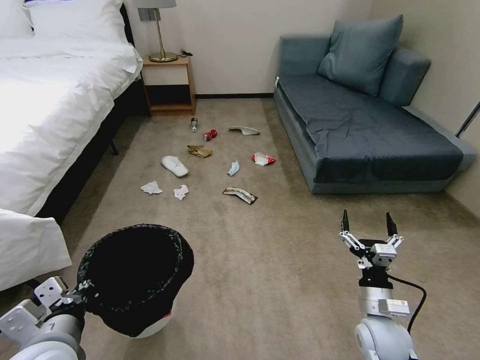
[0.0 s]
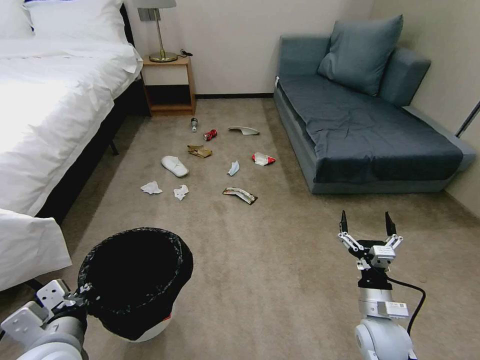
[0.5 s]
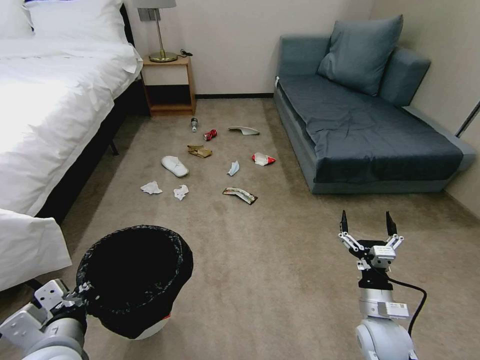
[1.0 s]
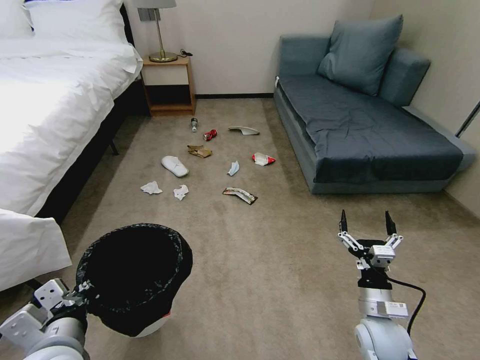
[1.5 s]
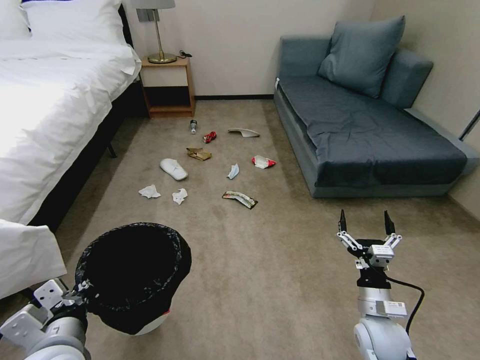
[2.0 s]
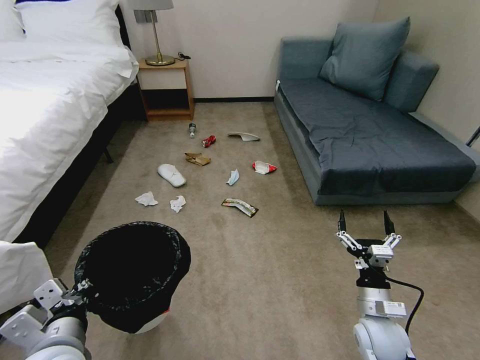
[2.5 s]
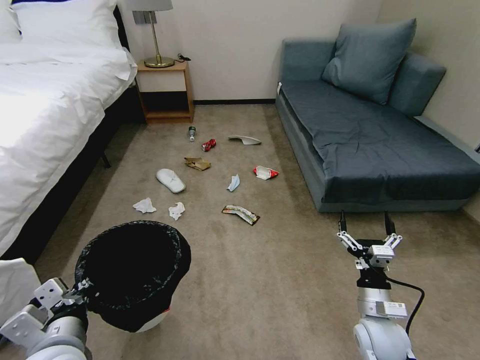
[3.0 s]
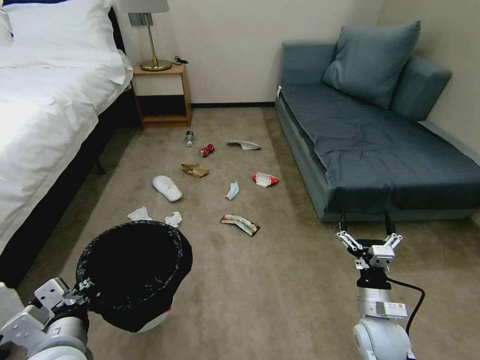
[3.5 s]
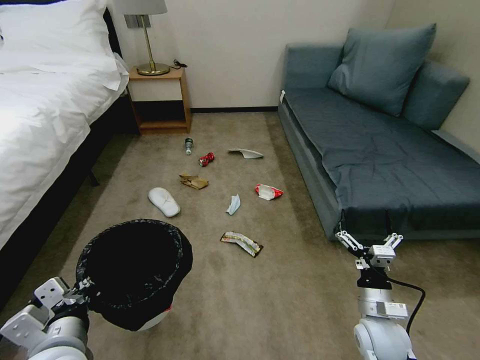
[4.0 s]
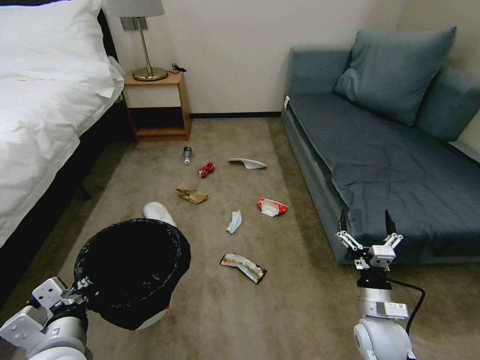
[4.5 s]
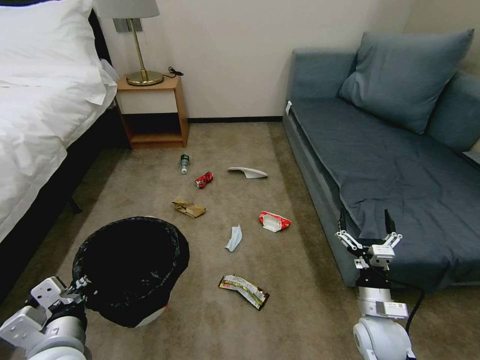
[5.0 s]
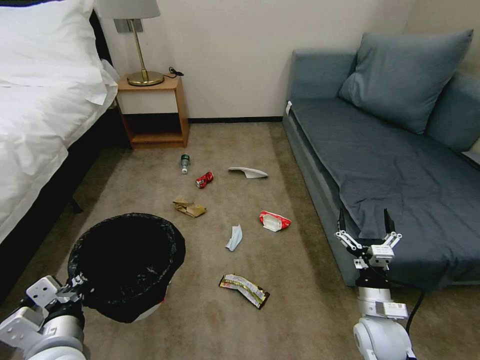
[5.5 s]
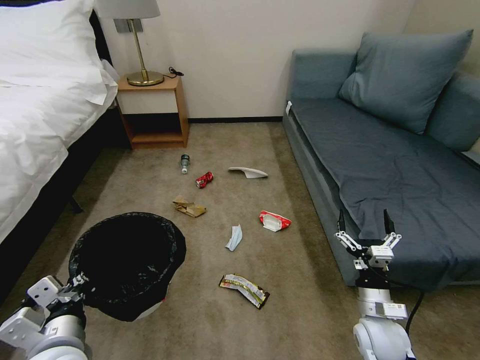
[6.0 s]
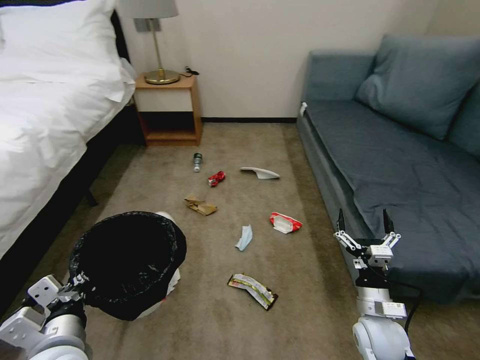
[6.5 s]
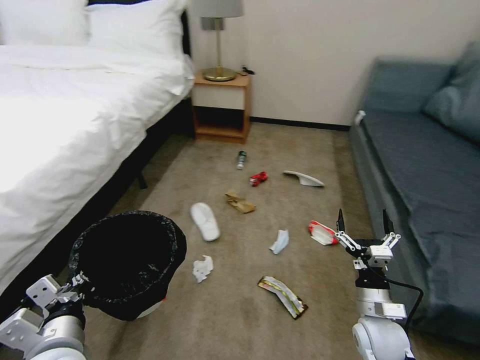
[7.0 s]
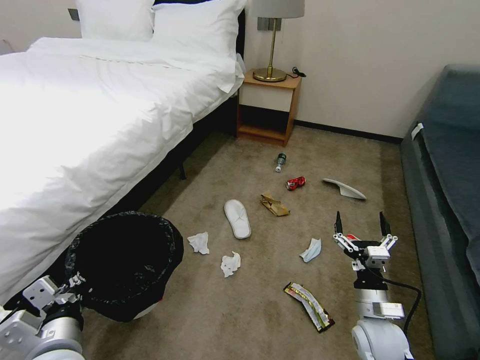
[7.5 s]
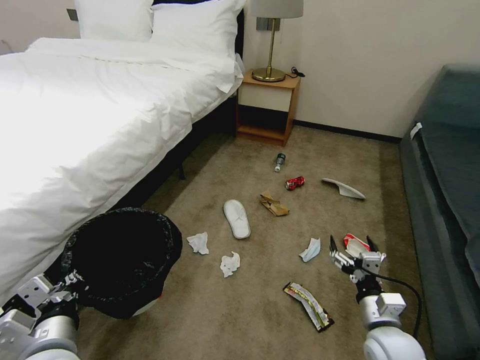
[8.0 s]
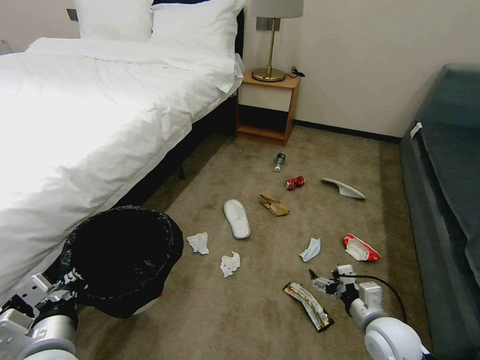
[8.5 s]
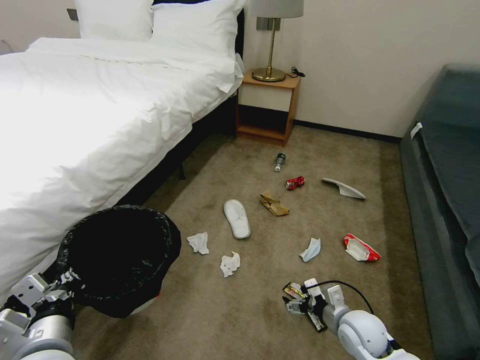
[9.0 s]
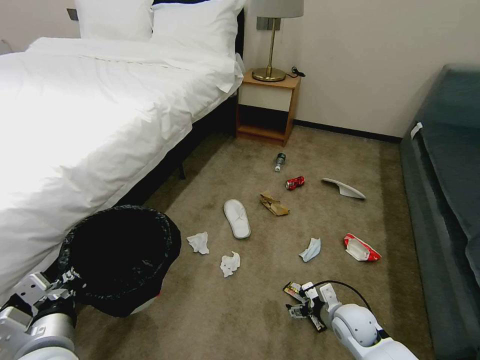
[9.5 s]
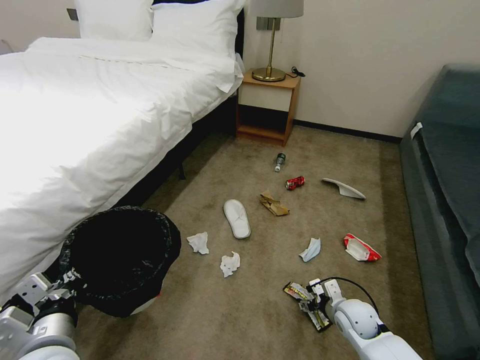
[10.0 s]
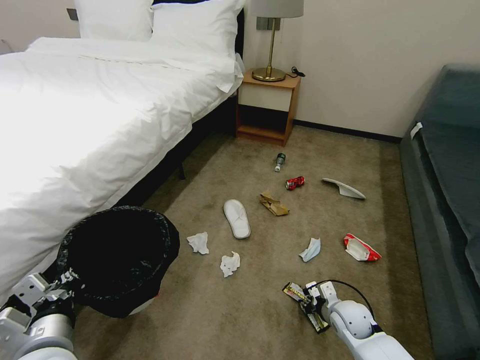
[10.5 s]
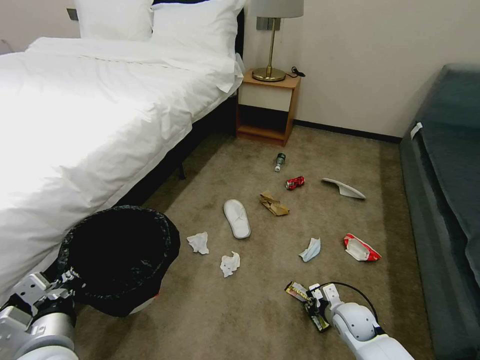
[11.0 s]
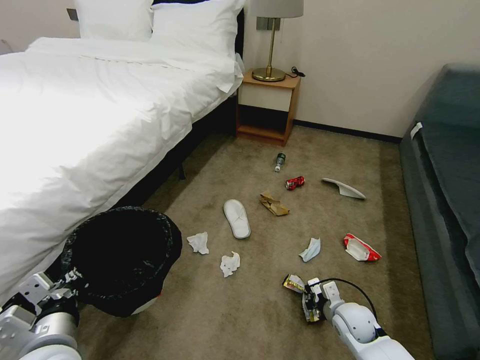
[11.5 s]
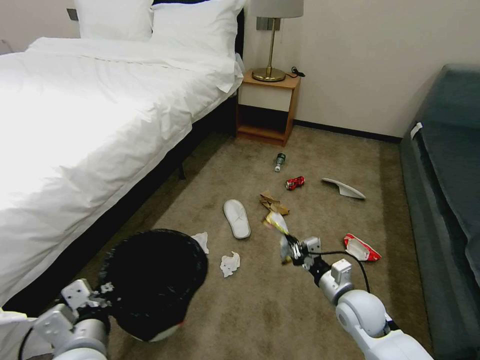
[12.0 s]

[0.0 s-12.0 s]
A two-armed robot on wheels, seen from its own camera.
Task of the whole recording: Pick up the trash bin, then pick up the garbage on the floor and place it into the trash bin.
8.0 to 10.0 s: The right gripper travels forward and downward by roughly 10 cm. Meanwhile the left gripper closes.
10.0 to 12.0 s: The right gripper goes about 5 cm upward, and closes up.

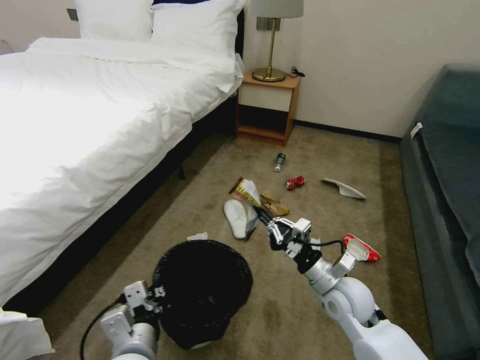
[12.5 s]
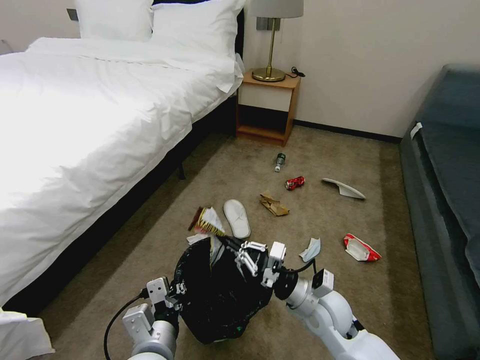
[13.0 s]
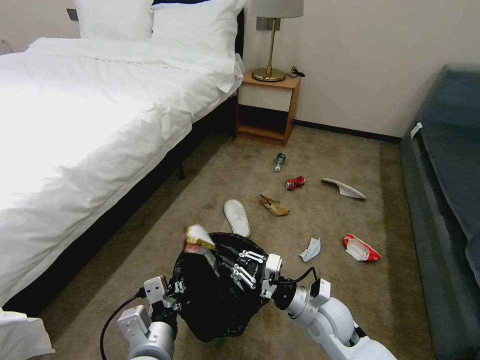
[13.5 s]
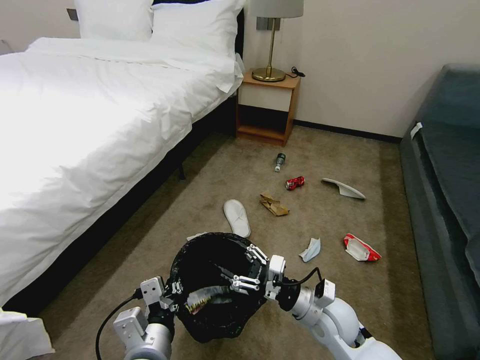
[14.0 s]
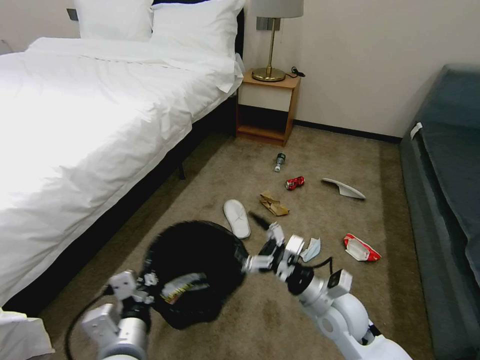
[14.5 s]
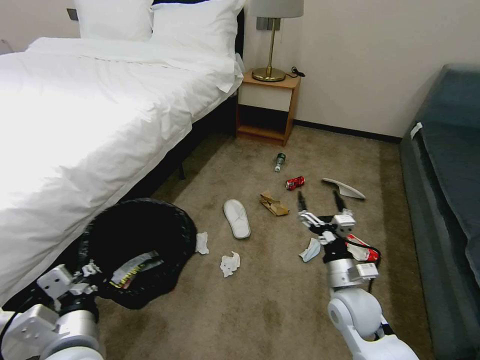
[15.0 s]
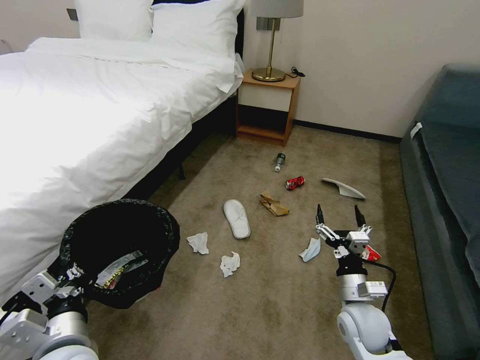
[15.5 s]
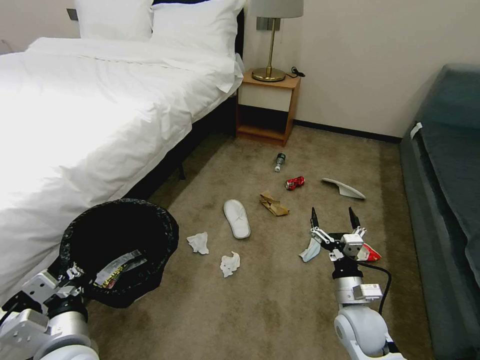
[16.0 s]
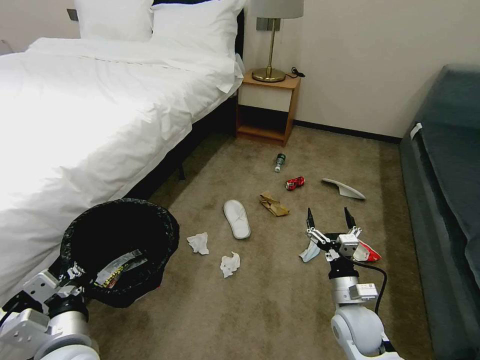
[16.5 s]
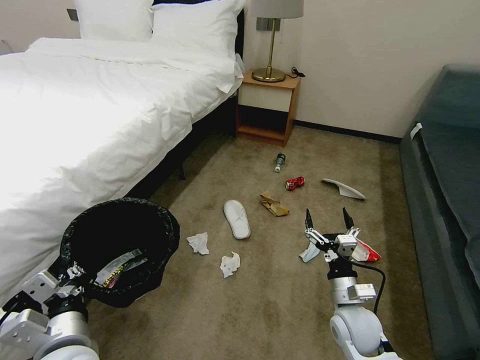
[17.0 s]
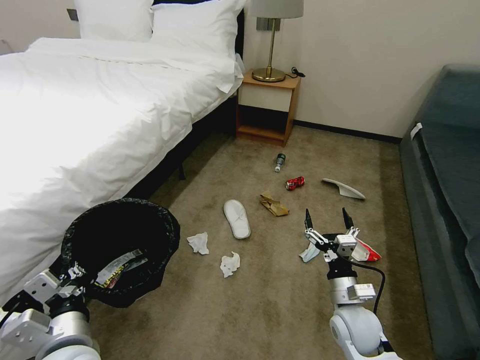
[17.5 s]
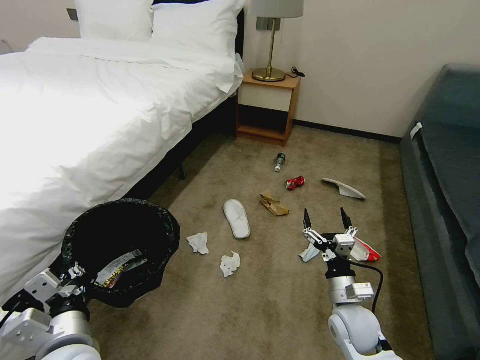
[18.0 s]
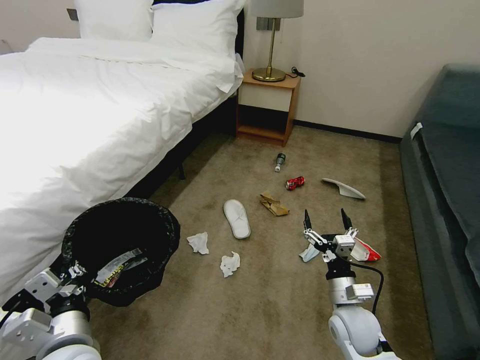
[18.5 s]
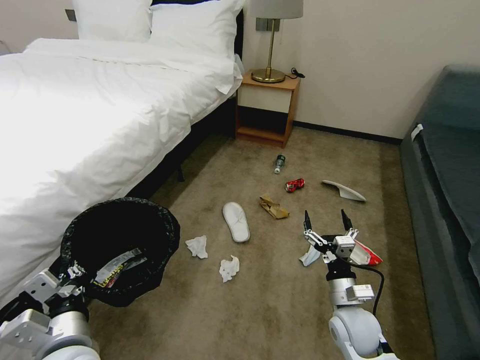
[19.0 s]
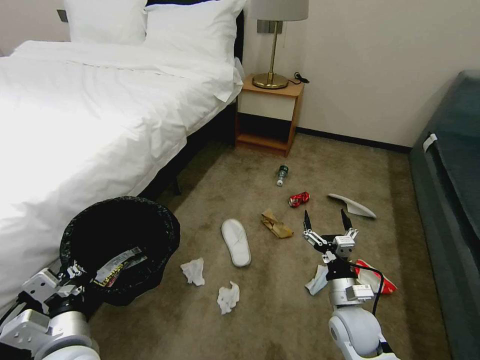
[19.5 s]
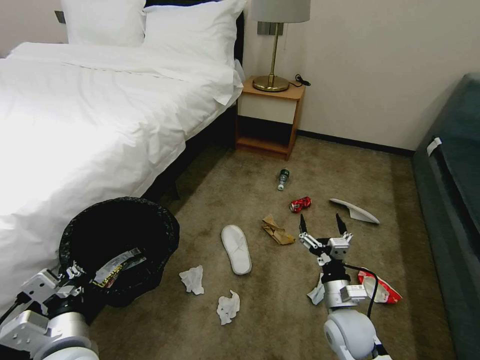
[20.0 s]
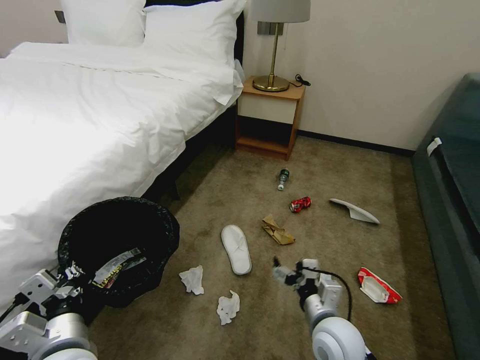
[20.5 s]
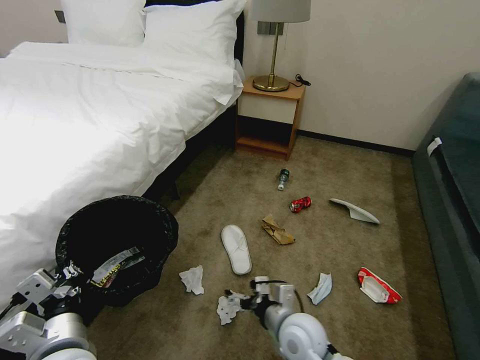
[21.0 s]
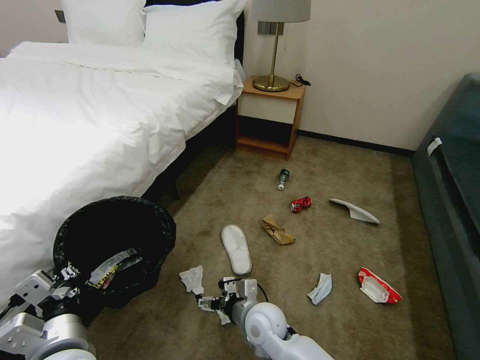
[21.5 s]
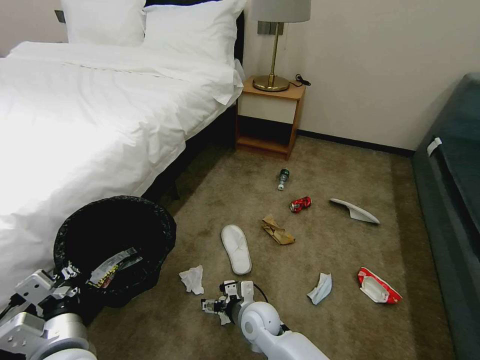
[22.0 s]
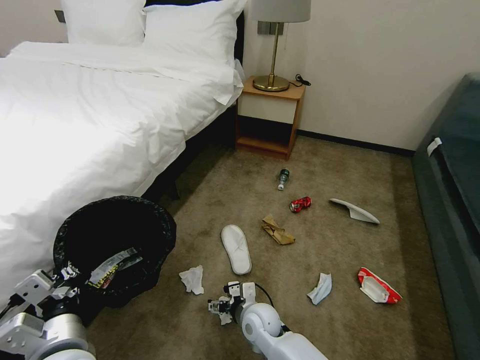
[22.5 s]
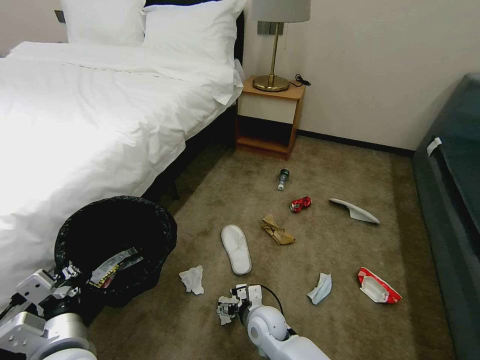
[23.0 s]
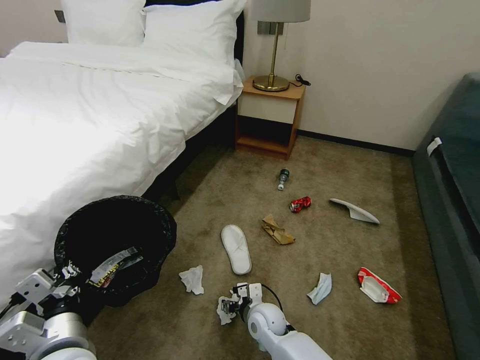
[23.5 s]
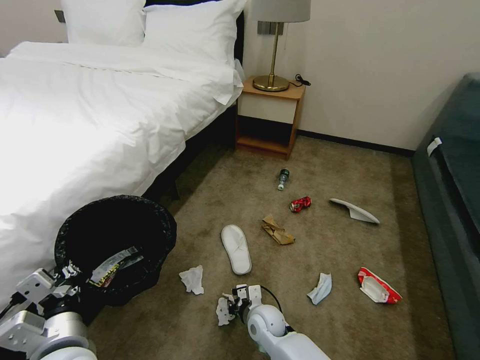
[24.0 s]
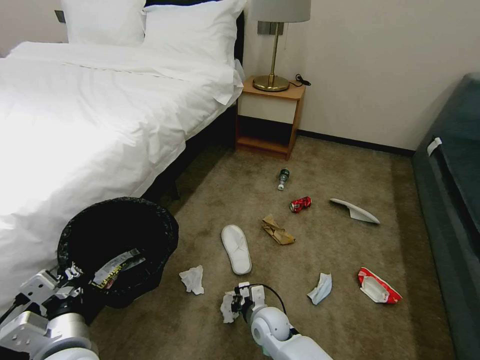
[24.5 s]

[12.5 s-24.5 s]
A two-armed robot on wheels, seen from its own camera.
Task of the whole recording: Pick up the trash bin, then pick up the garbage on the floor and place it into the trash bin.
12.5 to 14.5 s: The right gripper opens.
14.5 to 16.5 s: The left gripper heads to the left, covering roughly 5 cm. The right gripper moves downward, approximately 5 cm.
16.5 to 18.5 s: Both grippers stay about where they are.
18.5 to 20.5 s: The right gripper travels to the left by about 5 cm.
20.5 to 22.5 s: The right gripper goes about 20 cm to the left, downward and forward.
22.5 to 24.5 s: The right gripper closes up.

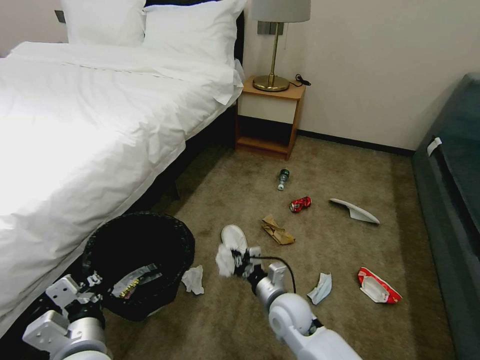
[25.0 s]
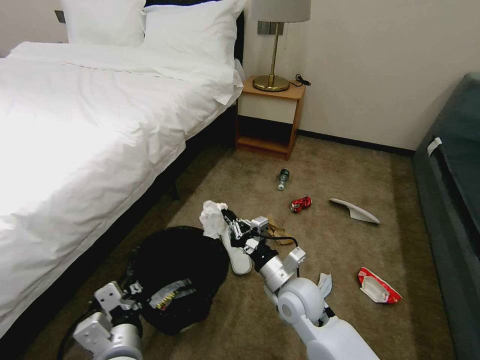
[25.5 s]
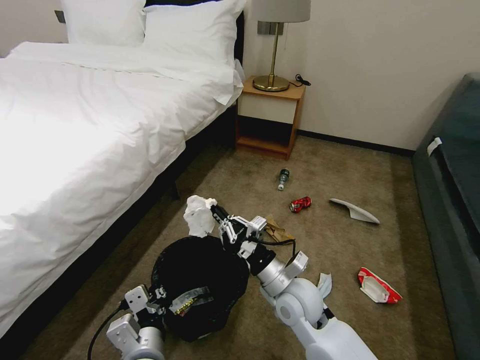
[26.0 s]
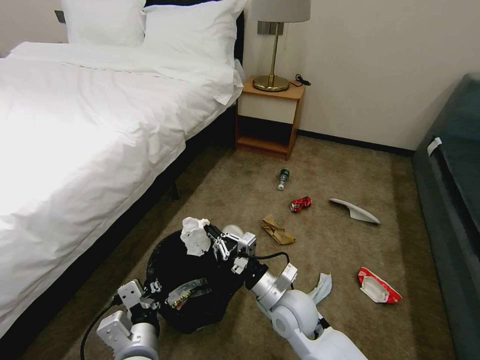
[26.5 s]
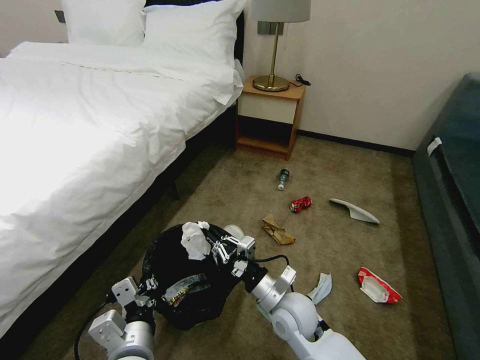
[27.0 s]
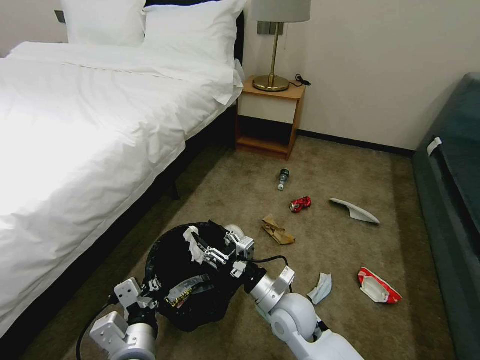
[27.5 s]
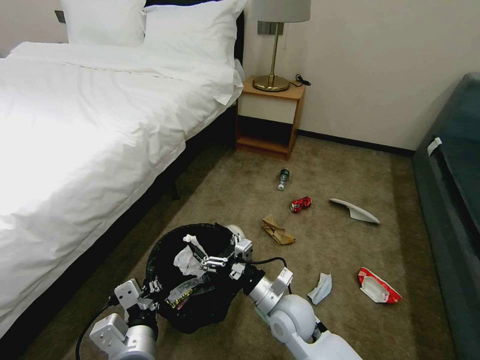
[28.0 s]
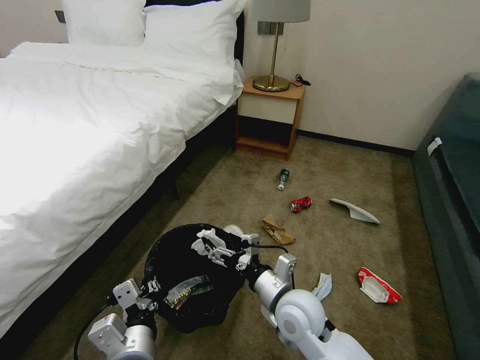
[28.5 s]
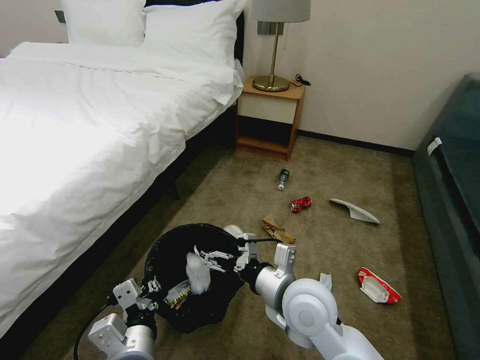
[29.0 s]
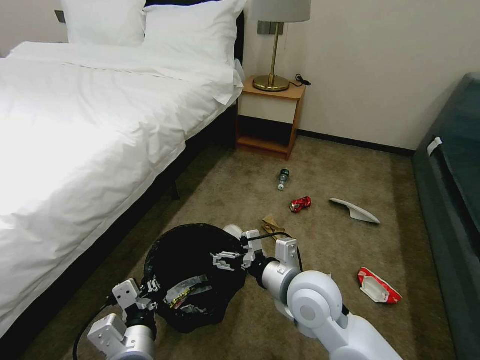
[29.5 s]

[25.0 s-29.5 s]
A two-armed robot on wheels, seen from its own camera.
Task of the whole recording: Pick up the trash bin, then pick up the garbage on the floor and place it into the trash bin.
25.0 to 27.0 s: The left gripper is displaced to the right by roughly 5 cm.
27.0 to 29.5 s: The right gripper is displaced upward by some 10 cm, and opens its fingers.
